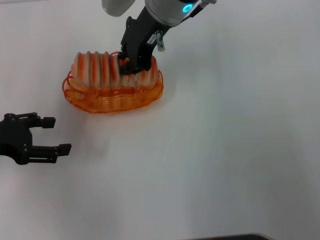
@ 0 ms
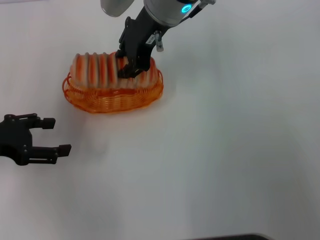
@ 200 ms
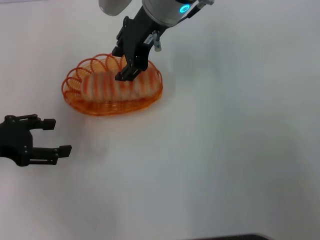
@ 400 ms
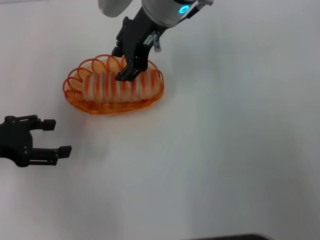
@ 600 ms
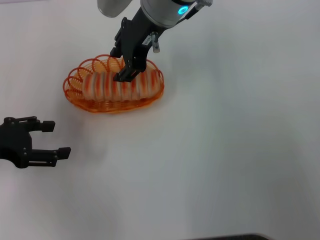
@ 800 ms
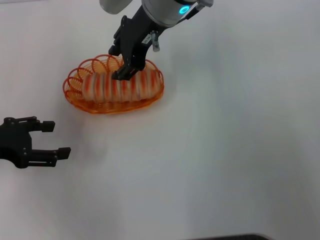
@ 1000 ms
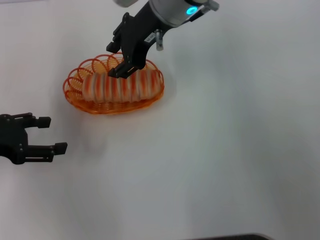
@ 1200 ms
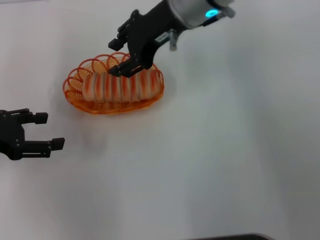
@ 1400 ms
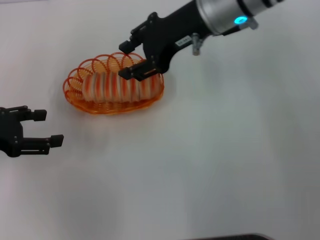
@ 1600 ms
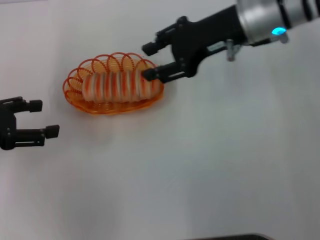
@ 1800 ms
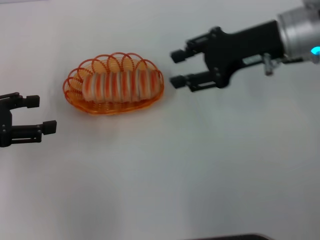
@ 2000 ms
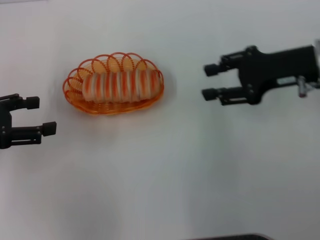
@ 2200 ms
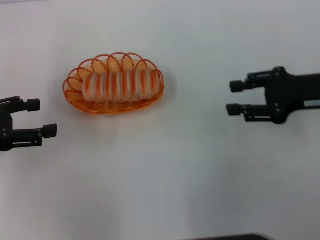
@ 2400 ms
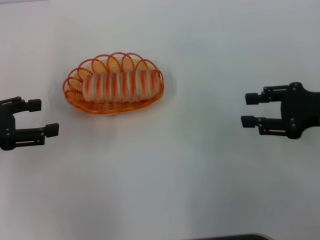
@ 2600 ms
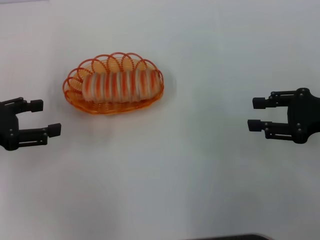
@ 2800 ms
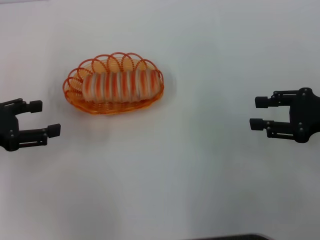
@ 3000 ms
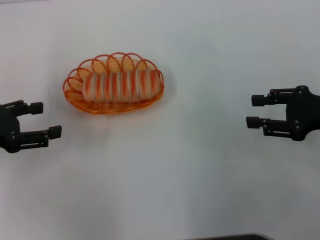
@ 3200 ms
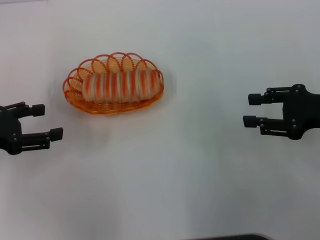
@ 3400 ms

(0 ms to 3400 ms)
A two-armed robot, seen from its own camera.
0 ms - 1600 ms: The right gripper heads to the right, covering some 10 cm, and opens up.
1600 ms - 3400 ms: The right gripper is displaced to the right, backward and downward by roughly 25 cm.

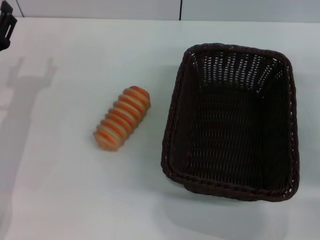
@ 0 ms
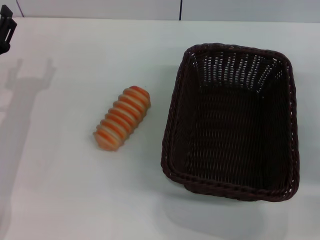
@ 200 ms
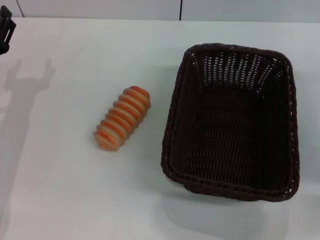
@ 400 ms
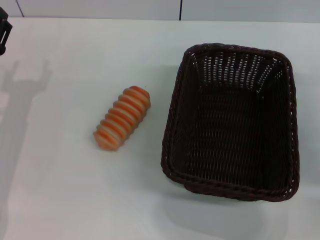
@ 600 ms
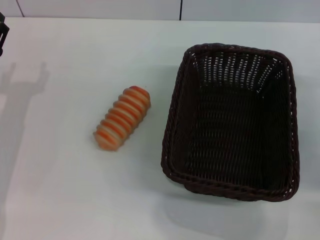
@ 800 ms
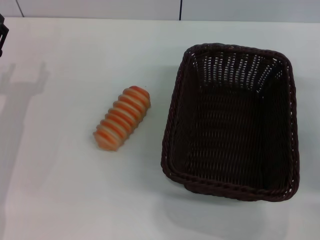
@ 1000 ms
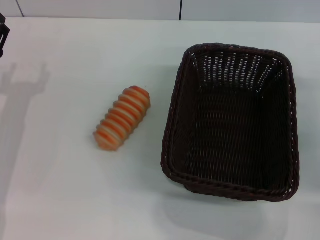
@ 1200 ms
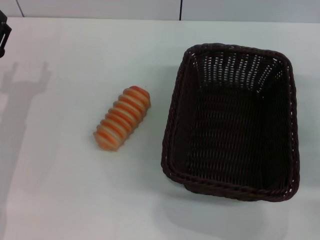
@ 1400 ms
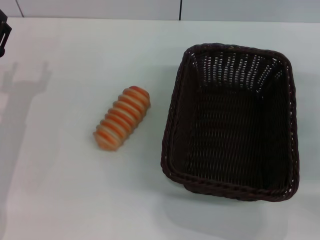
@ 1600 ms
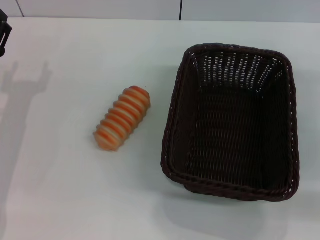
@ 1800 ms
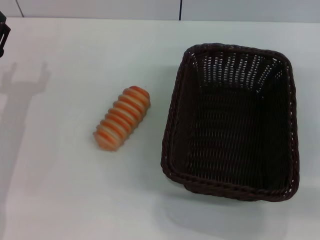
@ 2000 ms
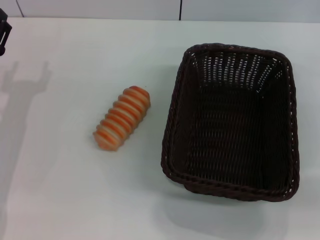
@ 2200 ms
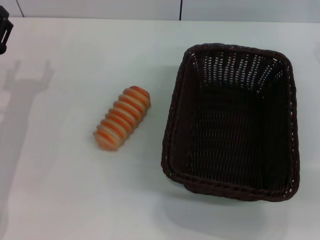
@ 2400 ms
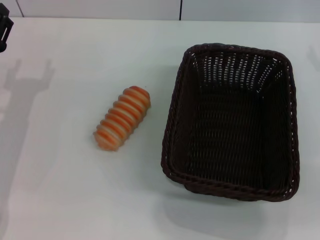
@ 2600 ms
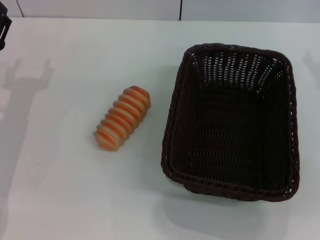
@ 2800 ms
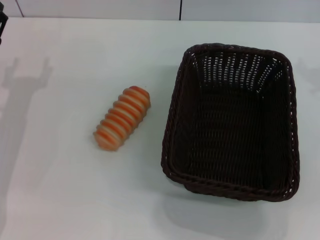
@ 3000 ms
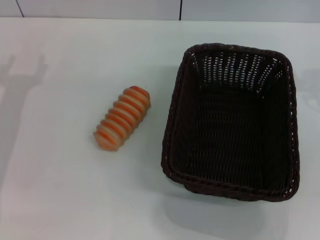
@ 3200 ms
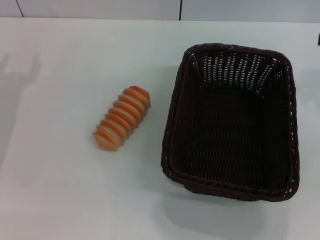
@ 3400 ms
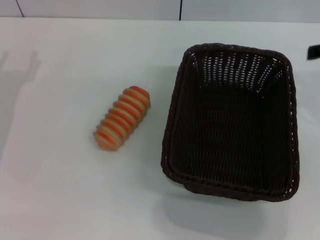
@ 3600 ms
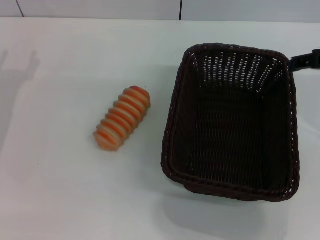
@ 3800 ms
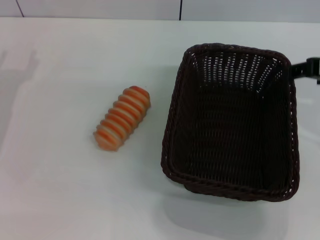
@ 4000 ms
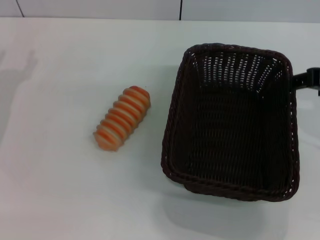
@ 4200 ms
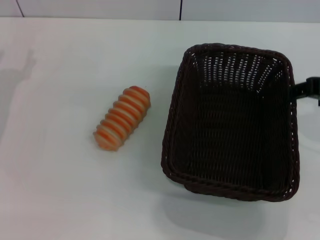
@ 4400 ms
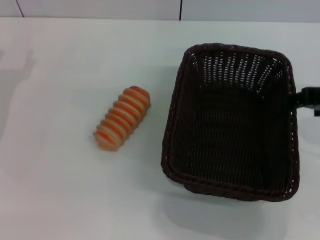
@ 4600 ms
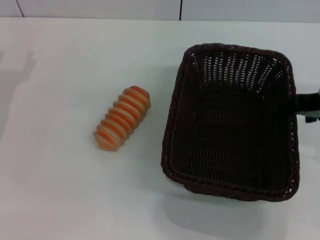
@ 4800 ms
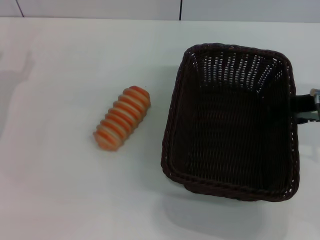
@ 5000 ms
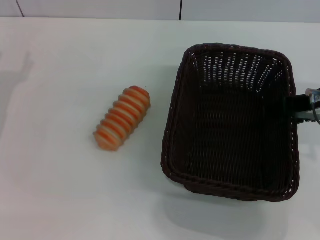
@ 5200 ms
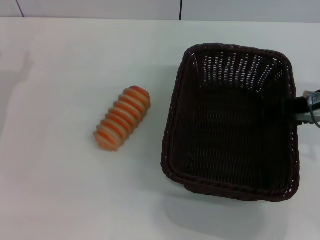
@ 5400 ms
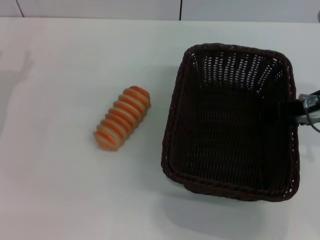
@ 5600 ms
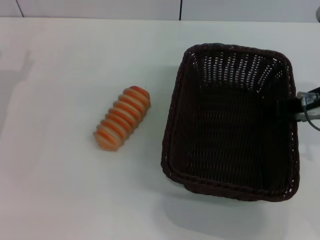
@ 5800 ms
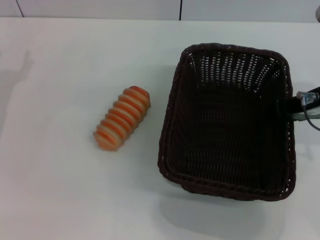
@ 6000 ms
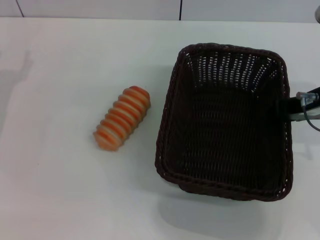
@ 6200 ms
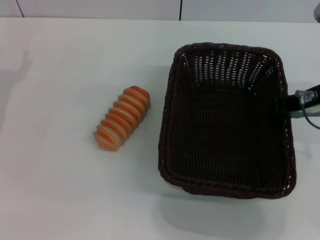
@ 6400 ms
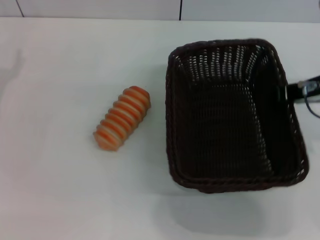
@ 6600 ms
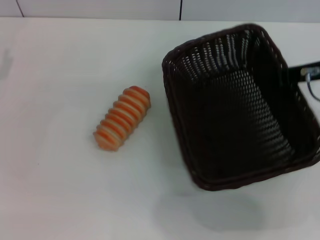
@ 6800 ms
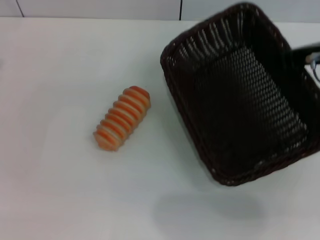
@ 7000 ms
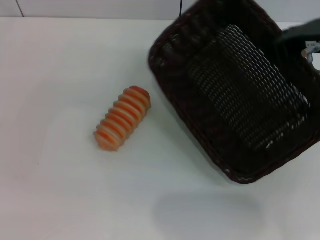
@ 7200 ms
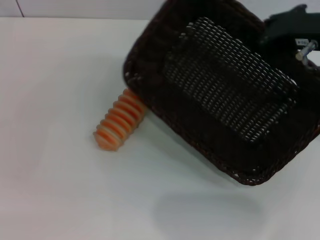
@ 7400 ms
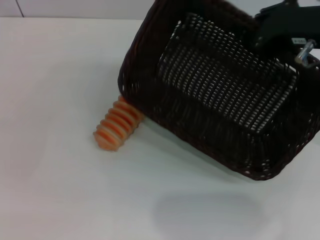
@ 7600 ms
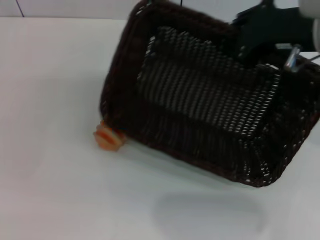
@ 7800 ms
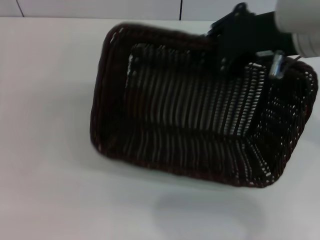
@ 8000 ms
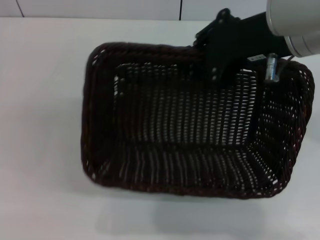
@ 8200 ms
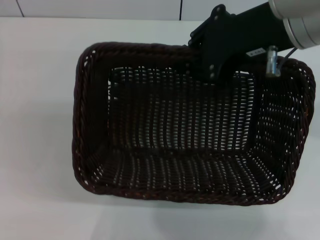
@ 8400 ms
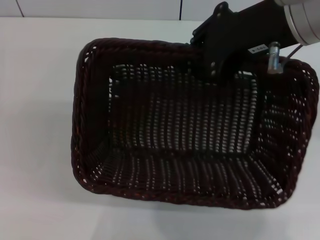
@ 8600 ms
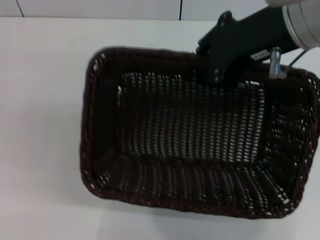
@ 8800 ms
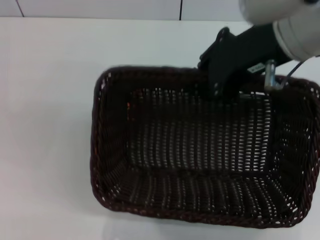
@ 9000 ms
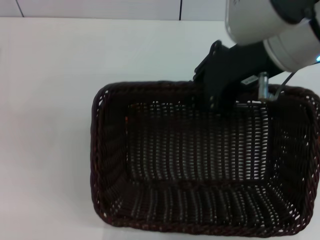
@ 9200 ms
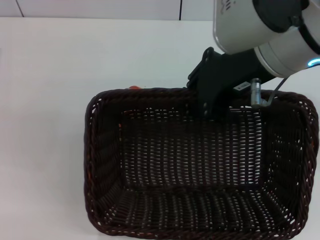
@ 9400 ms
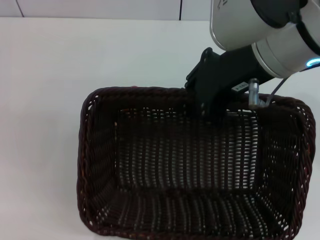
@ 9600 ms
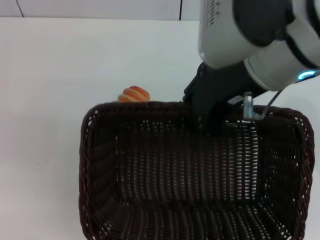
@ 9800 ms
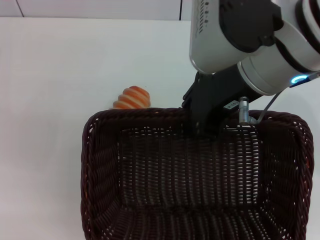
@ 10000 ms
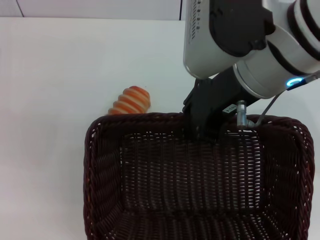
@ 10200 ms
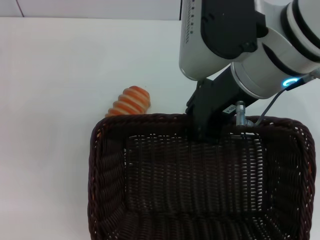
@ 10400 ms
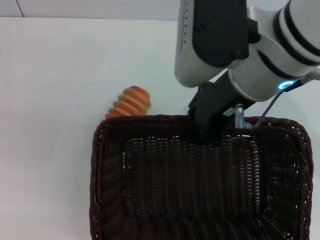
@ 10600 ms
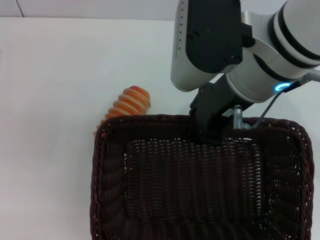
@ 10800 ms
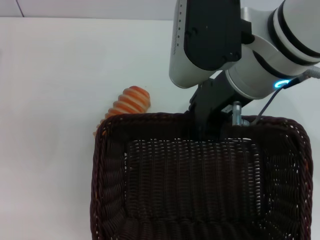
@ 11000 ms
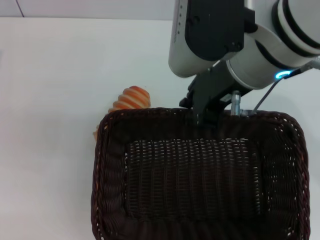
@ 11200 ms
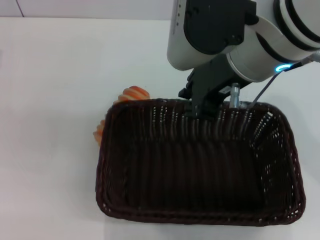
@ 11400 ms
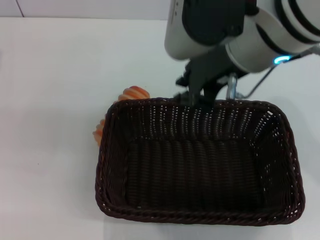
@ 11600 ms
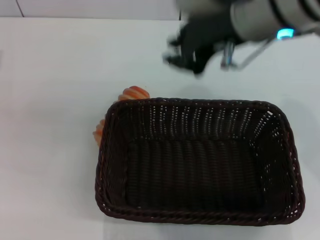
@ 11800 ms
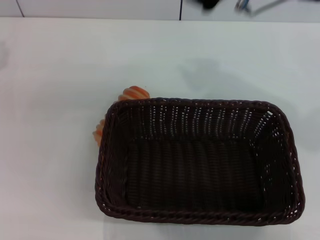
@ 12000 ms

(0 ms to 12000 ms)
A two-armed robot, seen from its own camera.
Step, 0 ms - 6800 ms: Pick up the dark basket with the right gripper.
Step, 7200 ms - 11400 ms: Place the dark basket in the center of view with the right gripper.
1600 ms - 3000 ms: The right gripper moves upward, about 15 cm.
3000 ms - 4400 ms: The right gripper ends up approximately 5 cm from where it was.
4400 ms - 6000 ms: The right gripper shifts by some 5 cm, and closes up.
6000 ms - 7600 ms: The right gripper moves upward, roughly 5 cm, and closes its fingers.
7600 ms - 9000 ms: The right gripper heads to the left, covering roughly 5 cm.
10400 ms - 12000 ms: The right gripper ends up about 5 cm from where it was.

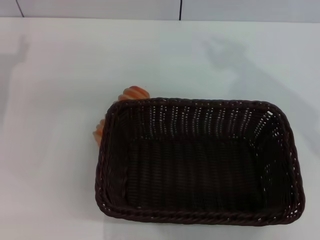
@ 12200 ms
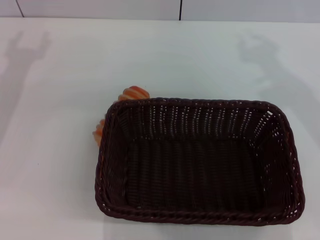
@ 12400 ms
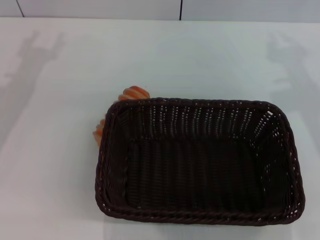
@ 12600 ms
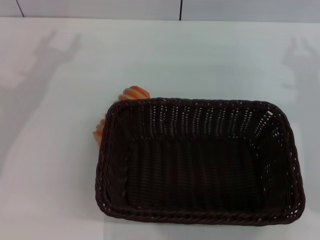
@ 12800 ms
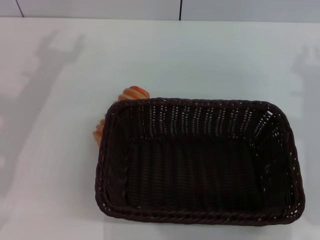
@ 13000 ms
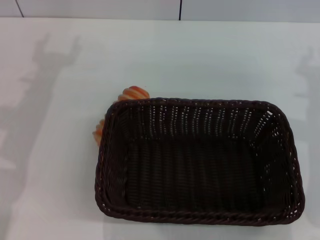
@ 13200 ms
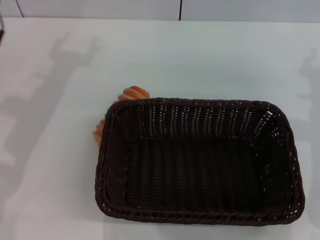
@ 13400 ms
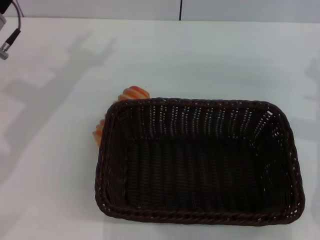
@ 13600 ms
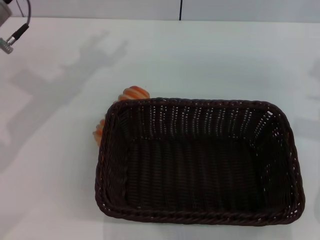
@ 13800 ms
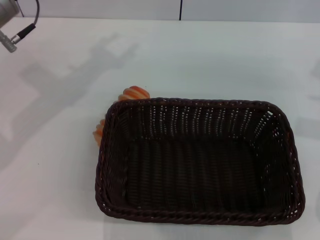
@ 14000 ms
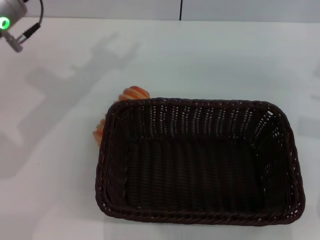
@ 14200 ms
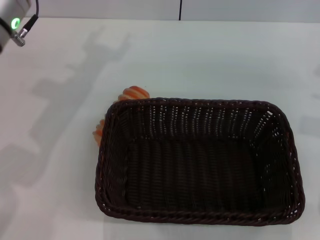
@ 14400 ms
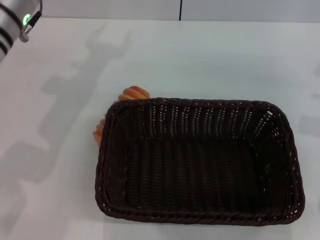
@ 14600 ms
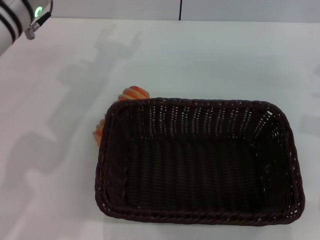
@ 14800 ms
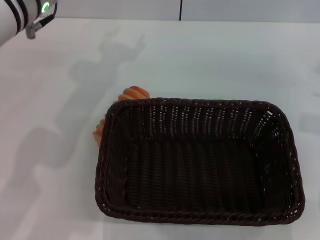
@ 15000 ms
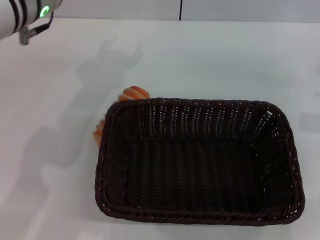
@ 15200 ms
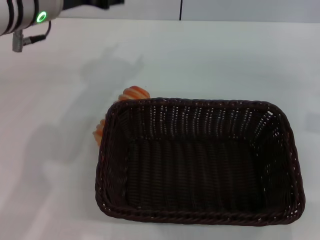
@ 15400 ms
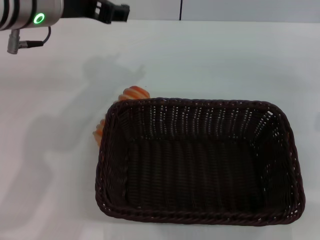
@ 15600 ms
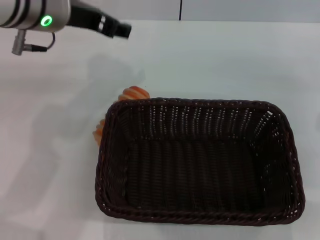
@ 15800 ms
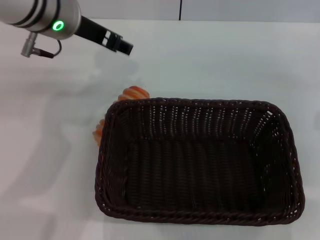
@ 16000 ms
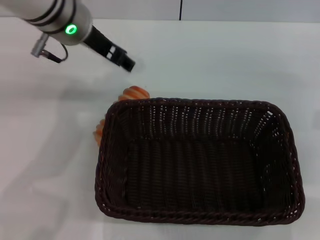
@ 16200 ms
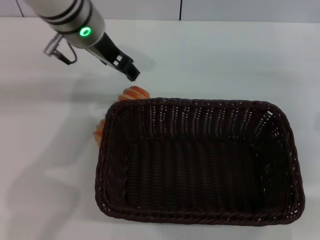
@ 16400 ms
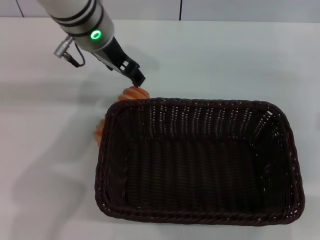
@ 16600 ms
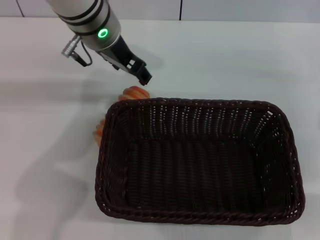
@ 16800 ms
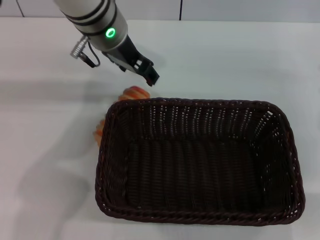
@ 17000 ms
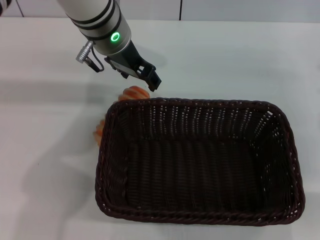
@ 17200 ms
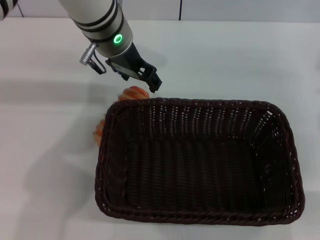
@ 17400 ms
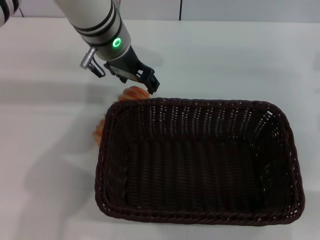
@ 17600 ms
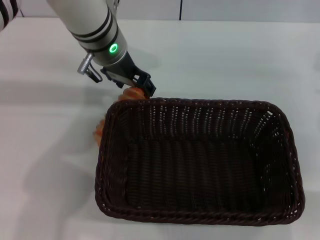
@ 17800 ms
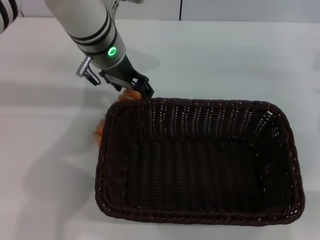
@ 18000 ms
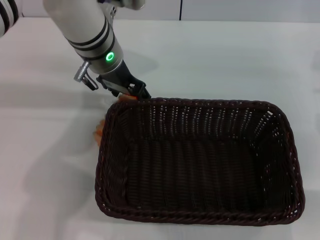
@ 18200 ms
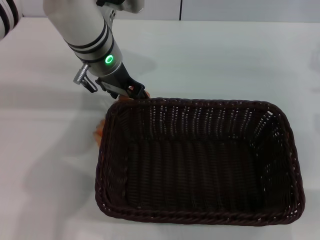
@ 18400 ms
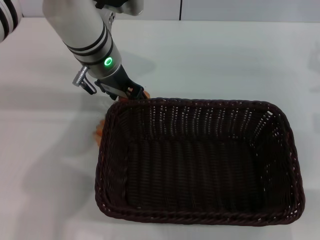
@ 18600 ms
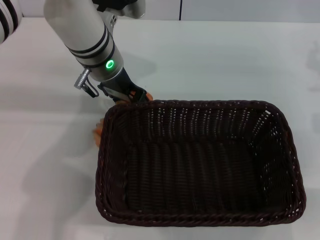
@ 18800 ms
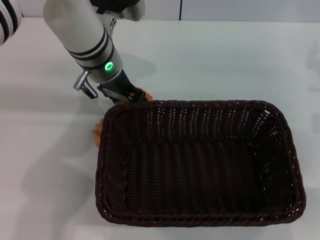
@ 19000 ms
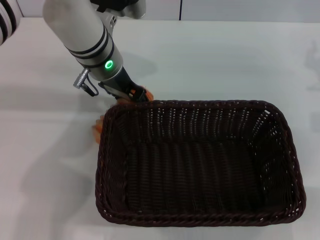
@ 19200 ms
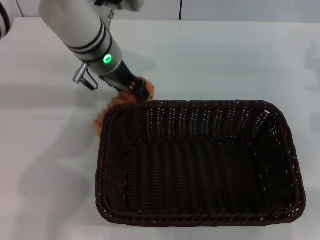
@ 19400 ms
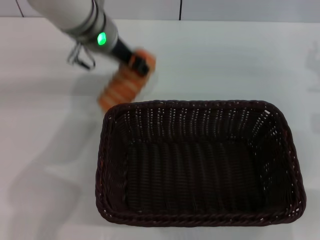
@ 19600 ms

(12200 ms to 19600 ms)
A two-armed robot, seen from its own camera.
12200 ms - 13600 ms: The right gripper is displaced downward and to the right by approximately 20 cm, while the left gripper is displaced to the right by some 10 cm.
13600 ms - 15200 ms: The left gripper travels to the right and upward by about 10 cm.
15200 ms - 16600 ms: The left gripper heads forward and to the right, covering some 10 cm.
16600 ms - 18200 ms: The grippers move only a little.
18200 ms - 19600 ms: The left gripper closes its fingers.
